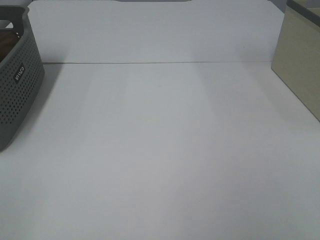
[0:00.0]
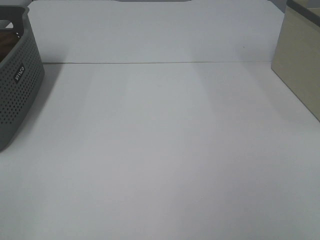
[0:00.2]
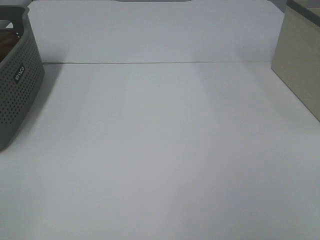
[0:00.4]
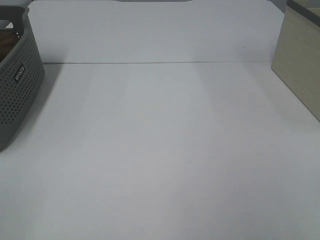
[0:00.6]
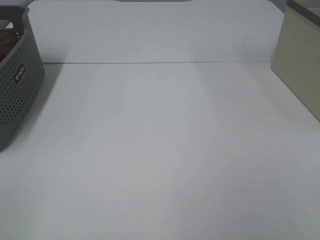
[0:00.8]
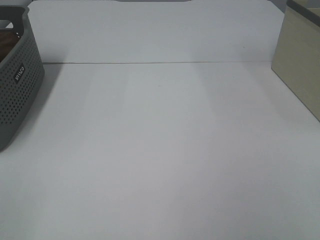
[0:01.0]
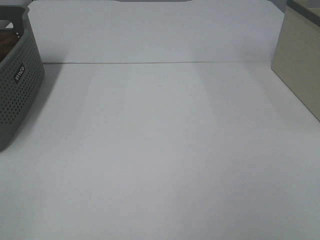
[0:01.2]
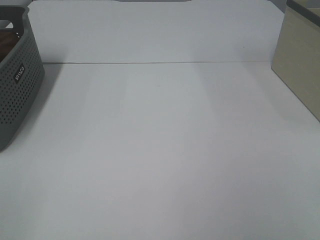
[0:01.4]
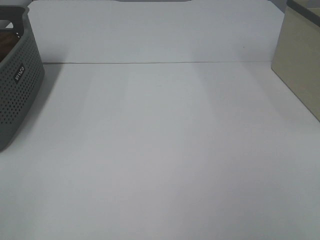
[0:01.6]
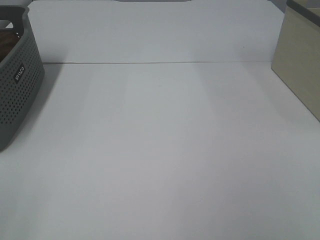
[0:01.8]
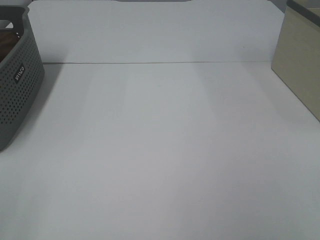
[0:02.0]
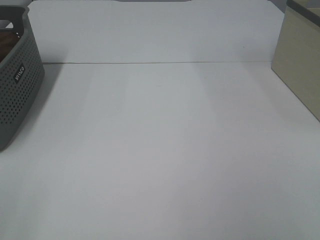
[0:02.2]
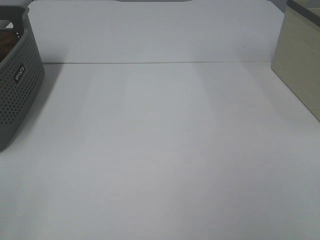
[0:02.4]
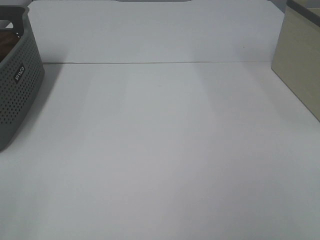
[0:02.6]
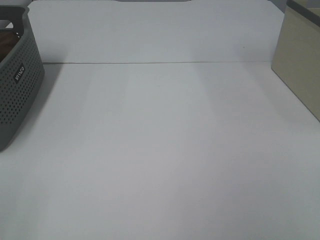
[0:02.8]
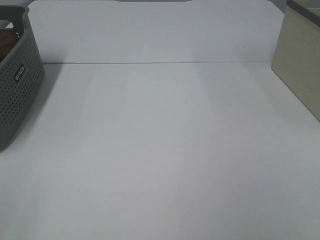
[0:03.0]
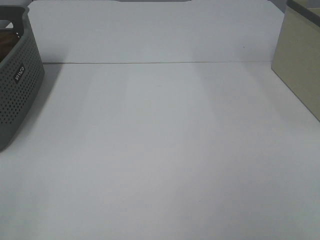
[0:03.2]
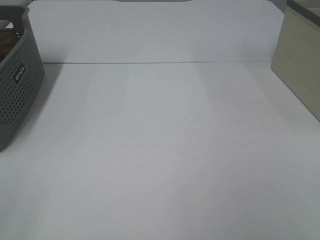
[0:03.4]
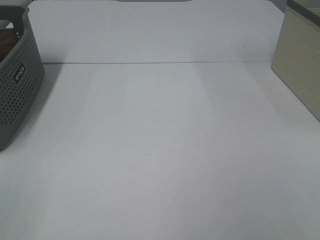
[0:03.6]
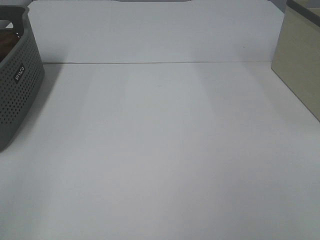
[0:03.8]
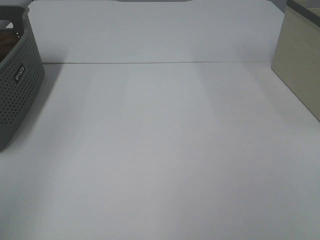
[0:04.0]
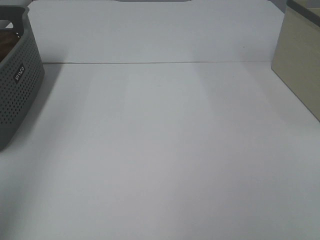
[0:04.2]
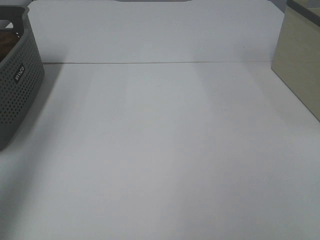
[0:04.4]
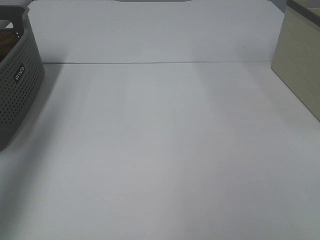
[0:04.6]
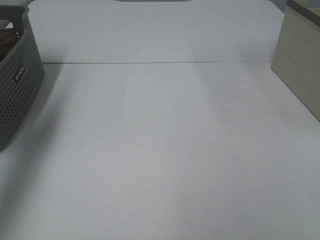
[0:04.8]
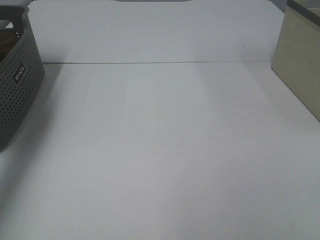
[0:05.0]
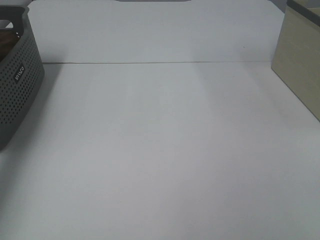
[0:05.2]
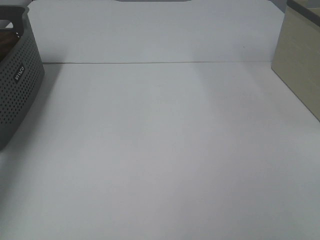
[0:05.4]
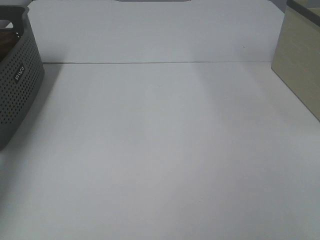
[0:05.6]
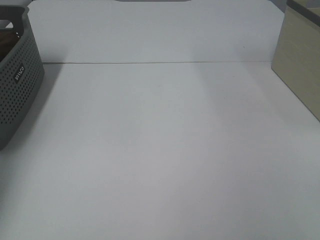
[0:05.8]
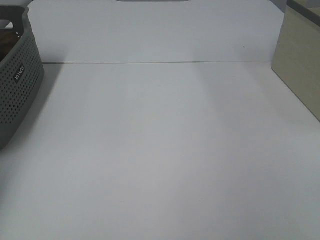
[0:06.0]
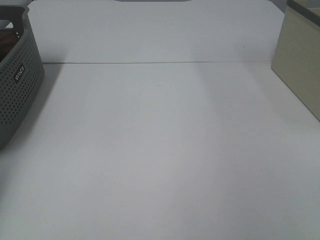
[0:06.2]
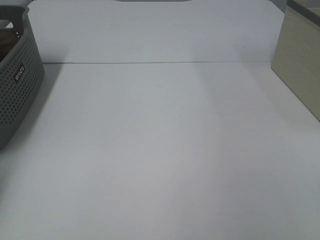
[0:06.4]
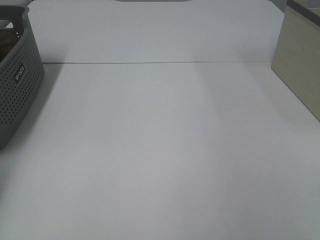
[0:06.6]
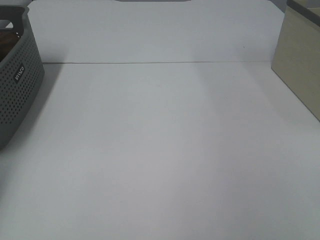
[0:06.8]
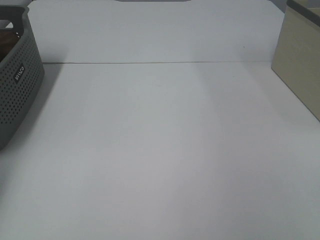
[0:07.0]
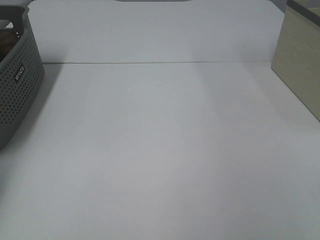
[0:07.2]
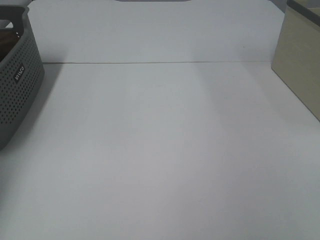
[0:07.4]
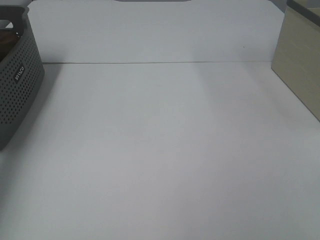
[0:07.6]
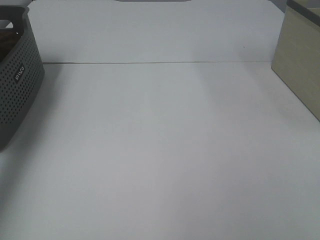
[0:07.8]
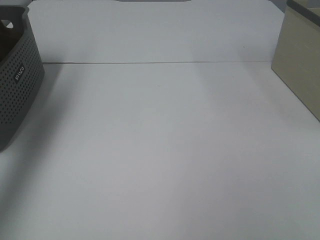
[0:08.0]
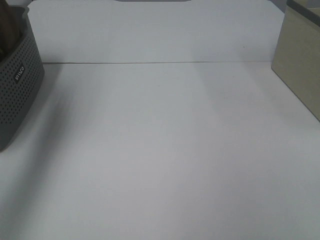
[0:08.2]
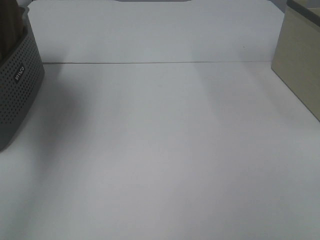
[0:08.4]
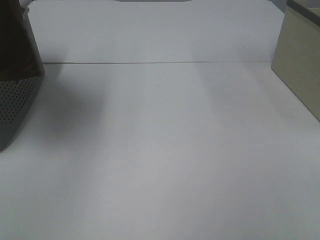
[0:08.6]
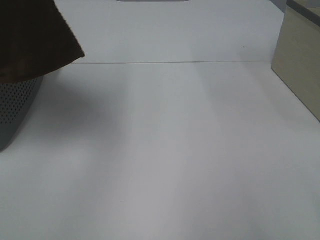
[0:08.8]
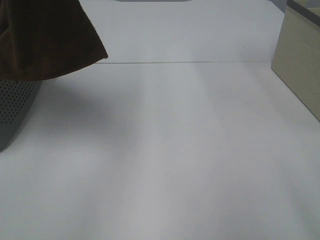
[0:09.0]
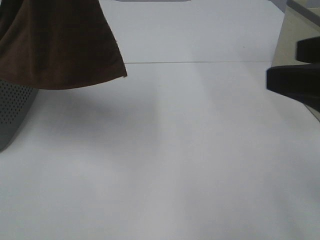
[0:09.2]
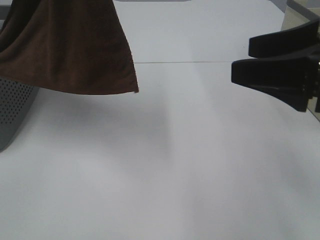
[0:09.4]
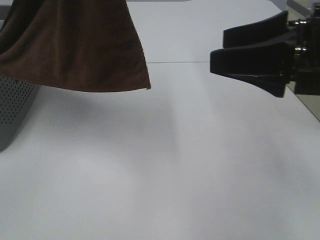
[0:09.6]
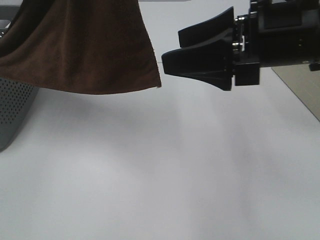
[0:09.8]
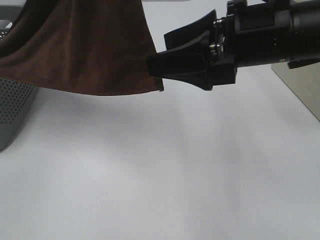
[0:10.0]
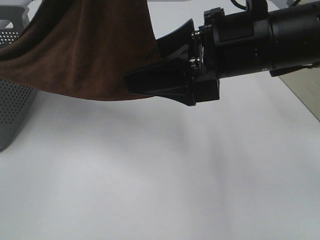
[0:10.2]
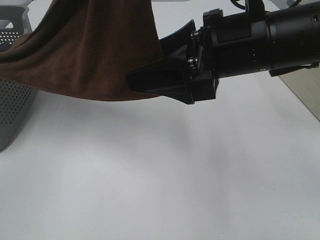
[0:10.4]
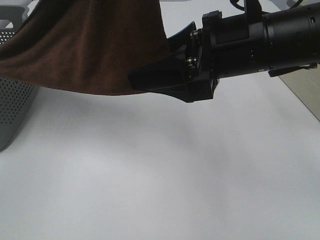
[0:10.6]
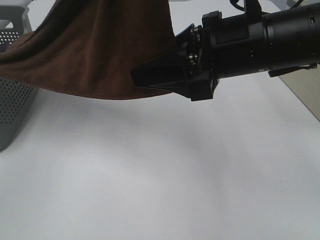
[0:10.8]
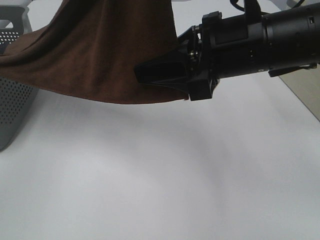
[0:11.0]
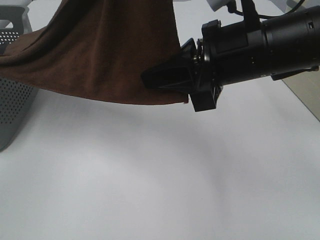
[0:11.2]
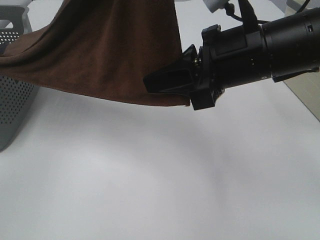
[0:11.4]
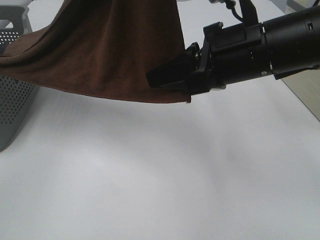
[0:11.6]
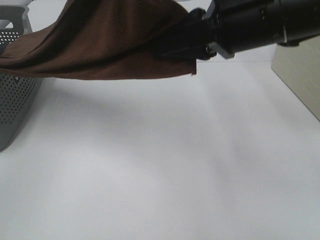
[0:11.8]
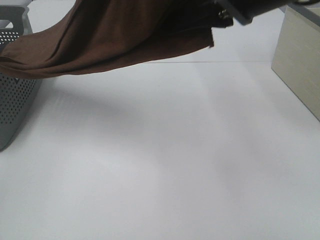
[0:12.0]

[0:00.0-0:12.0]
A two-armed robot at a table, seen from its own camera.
Task of the whole recording: Remove the towel and place it.
Step, 0:08.0 to 0:11.4: Right hand: grab a corner of the brown towel and straighten it.
0:00.0 to 0:03.0: Neither gripper changes place.
0:03.0 to 0:04.4: The left gripper heads forward and upward, covering roughly 25 cm.
0:04.4 to 0:06.0: The left gripper shifts some 30 cm forward, downward and to the left.
0:07.6 to 0:09.0: The right gripper heads forward, covering some 10 cm. The left gripper goes about 35 cm to the right, upward and backward.
0:09.0 to 0:10.4: The left gripper is displaced to the right by approximately 10 cm. Meanwhile the right gripper is displaced forward and to the left by about 20 cm.
0:10.4 to 0:12.0: The right gripper is displaced upward by approximately 10 cm, and closes up.

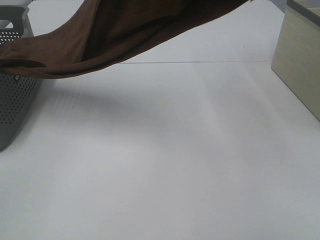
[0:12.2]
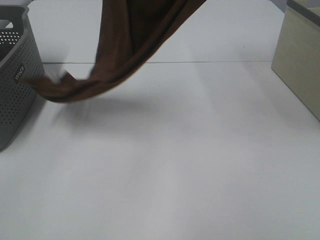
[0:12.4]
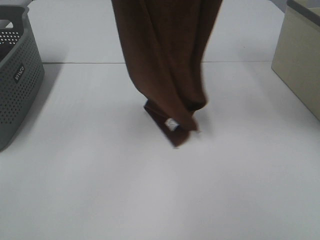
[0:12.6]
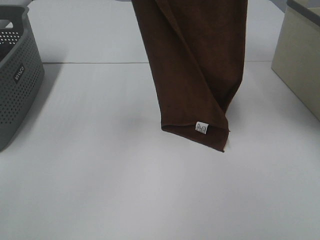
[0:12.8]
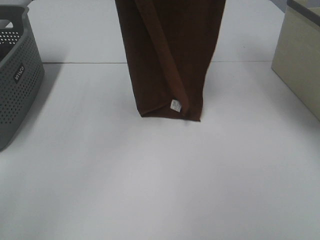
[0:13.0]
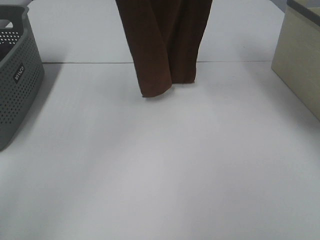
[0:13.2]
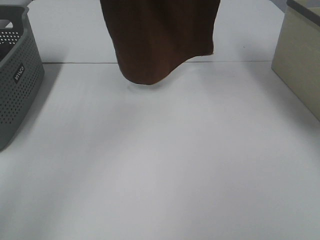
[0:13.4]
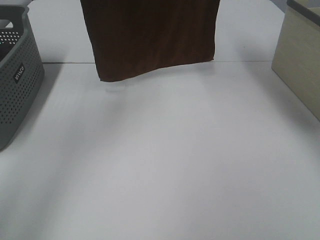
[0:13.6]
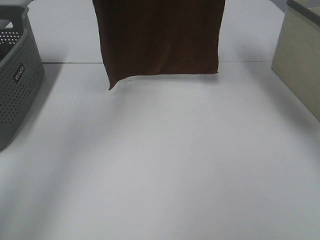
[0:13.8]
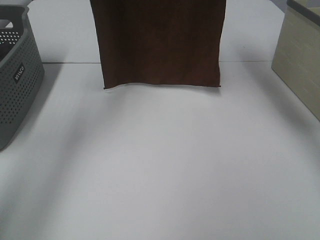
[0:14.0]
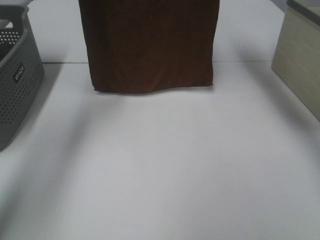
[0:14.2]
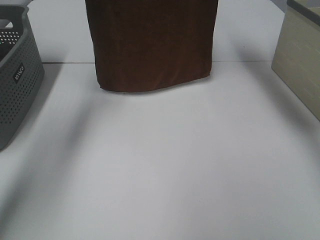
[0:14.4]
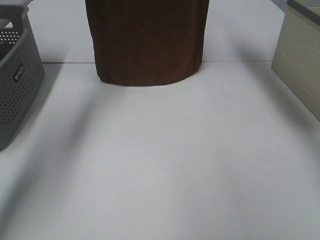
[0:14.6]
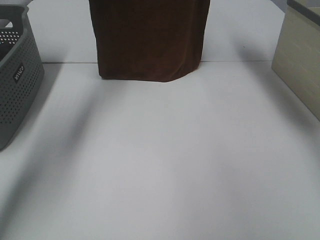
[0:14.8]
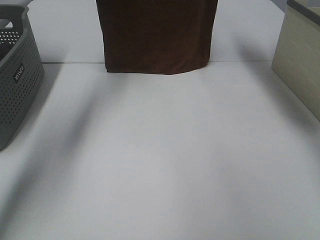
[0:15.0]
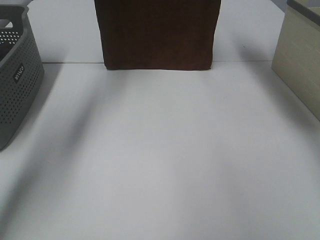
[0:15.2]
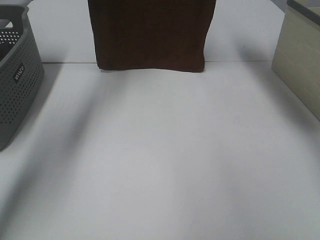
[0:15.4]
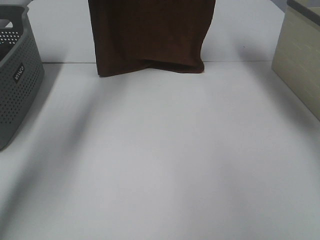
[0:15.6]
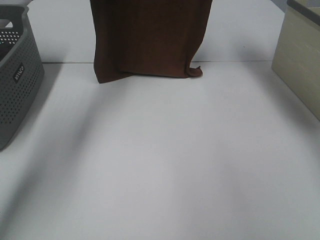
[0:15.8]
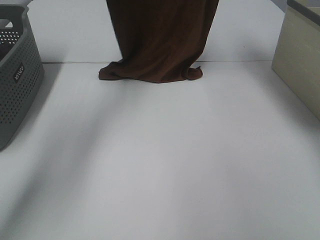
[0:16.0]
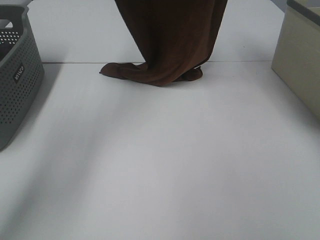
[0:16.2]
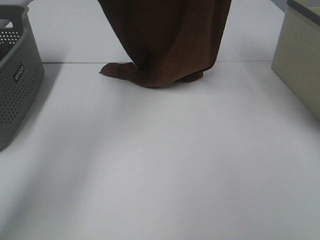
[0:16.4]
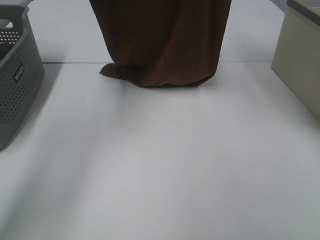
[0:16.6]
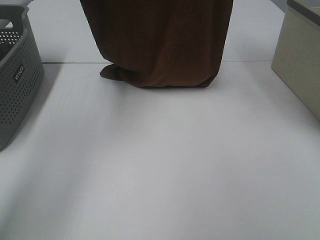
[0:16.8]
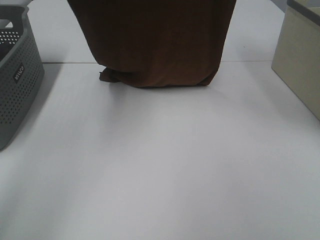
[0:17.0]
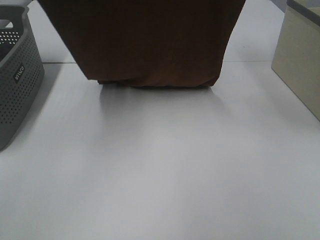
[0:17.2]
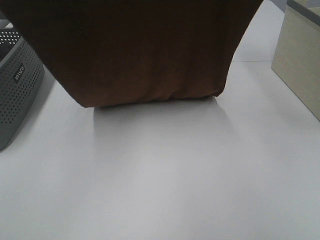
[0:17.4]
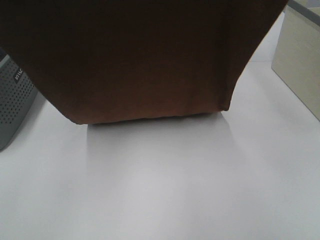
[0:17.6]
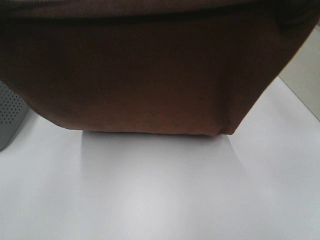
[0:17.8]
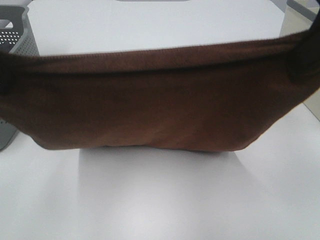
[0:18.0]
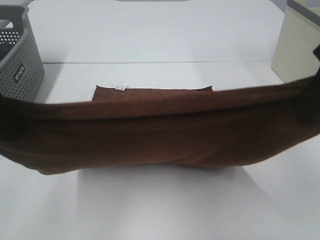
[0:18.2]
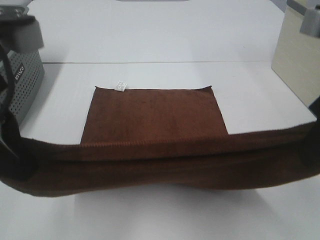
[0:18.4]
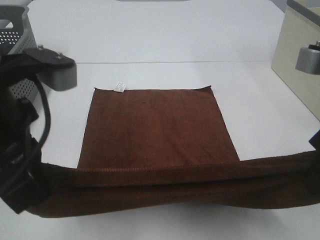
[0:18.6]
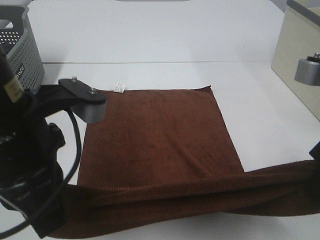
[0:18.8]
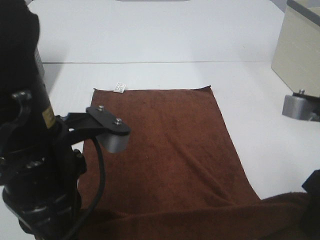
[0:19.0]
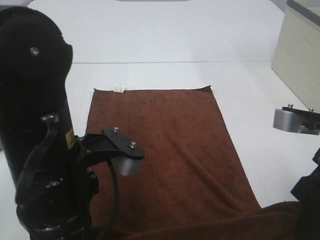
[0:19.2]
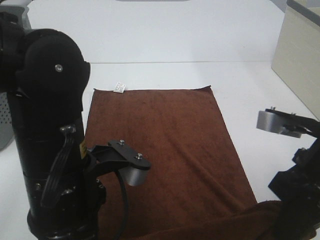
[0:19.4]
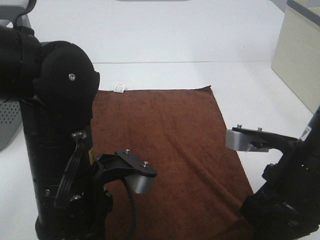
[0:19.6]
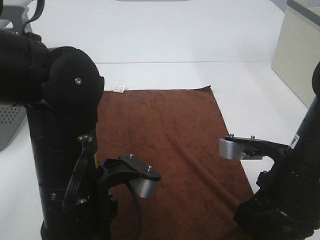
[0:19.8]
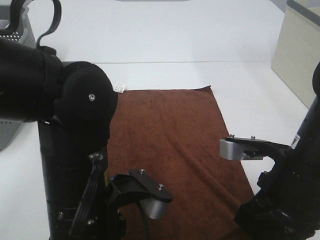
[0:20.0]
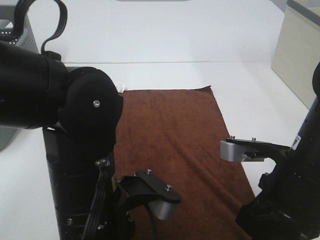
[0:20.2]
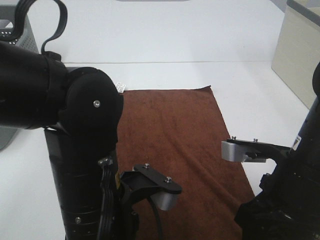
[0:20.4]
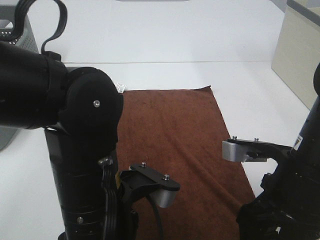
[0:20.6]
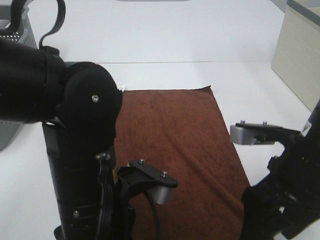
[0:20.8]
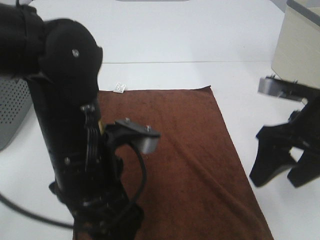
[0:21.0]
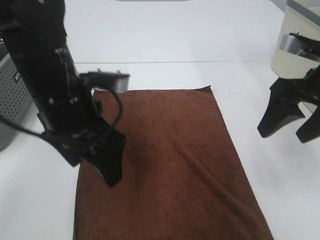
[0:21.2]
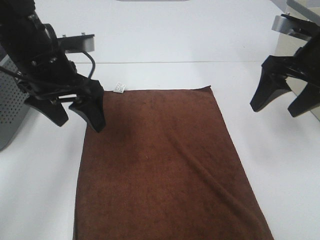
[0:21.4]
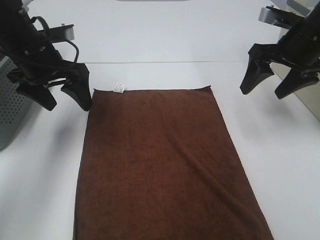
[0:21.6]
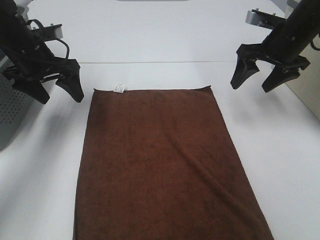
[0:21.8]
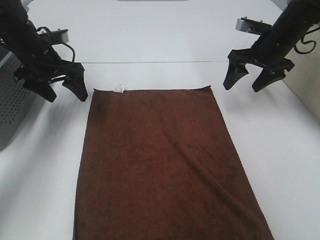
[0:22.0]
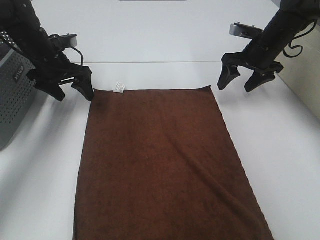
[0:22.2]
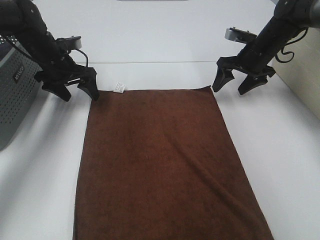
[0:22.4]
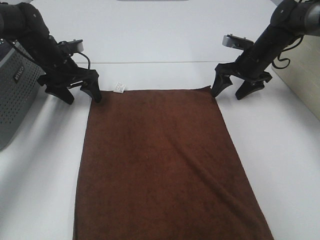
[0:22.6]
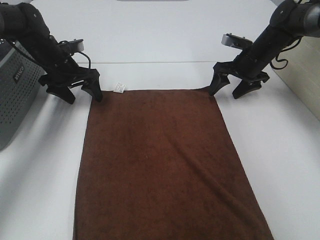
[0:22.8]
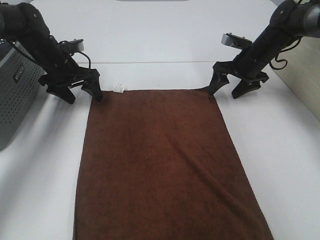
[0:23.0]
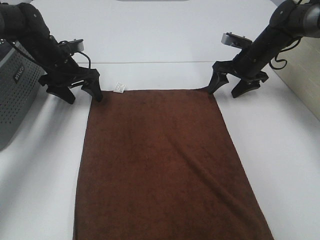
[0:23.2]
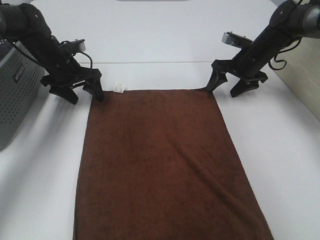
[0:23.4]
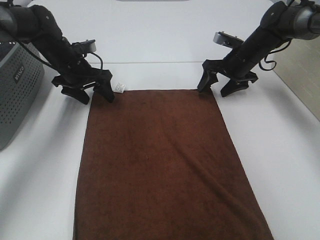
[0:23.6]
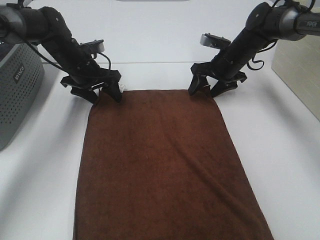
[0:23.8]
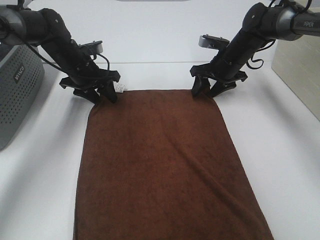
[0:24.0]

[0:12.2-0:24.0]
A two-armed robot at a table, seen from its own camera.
Task of the whole recording: Remove the towel and place it.
Step, 0:12.2 to 0:16.4: Left hand: spread the brown towel flat on the table.
Step, 0:12.2 to 0:16.4: Right hand: spread the brown towel flat on the table.
Step, 0:16.6 to 0:22.8: Left hand:adjust the brown towel.
Step, 0:16.6 to 0:22.8: Right hand:adjust the brown towel.
0:12.2 to 0:13.6: The left gripper shifts approximately 20 cm forward and to the left. The right gripper travels forward and upward by about 20 cm.
0:13.6 to 0:15.2: The grippers both shift forward and downward by approximately 15 cm.
0:15.2 to 0:16.6: The grippers both shift backward by some 10 cm.
0:16.6 to 0:18.2: The left gripper shifts some 25 cm backward. Meanwhile the right gripper travels backward and downward by approximately 25 cm.
0:18.2 to 0:19.6: The left gripper heads downward and to the right, covering approximately 20 cm, while the right gripper moves downward, approximately 15 cm.
0:19.6 to 0:21.0: The right gripper moves forward, about 5 cm, and opens; the left gripper opens its fingers.
0:21.0 to 0:22.6: The left gripper travels forward and to the left by about 35 cm. The right gripper travels forward by about 30 cm.
0:22.6 to 0:24.0: The right gripper goes approximately 5 cm to the left.
